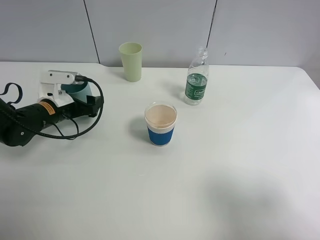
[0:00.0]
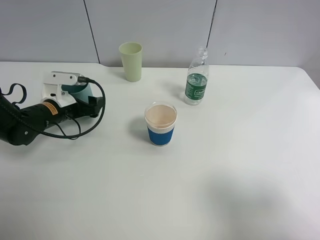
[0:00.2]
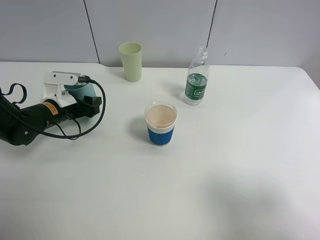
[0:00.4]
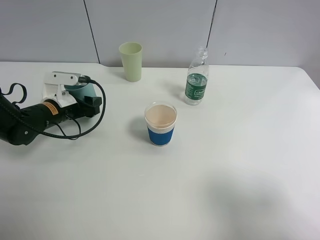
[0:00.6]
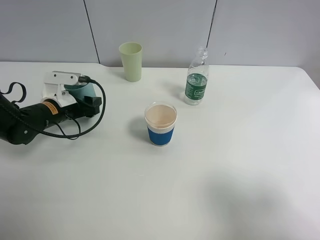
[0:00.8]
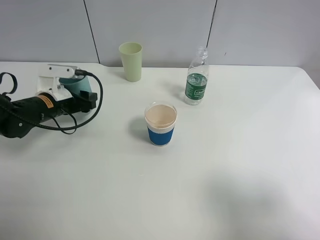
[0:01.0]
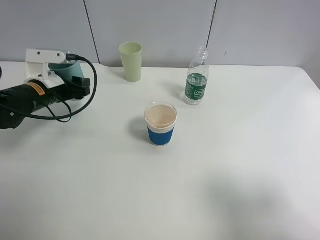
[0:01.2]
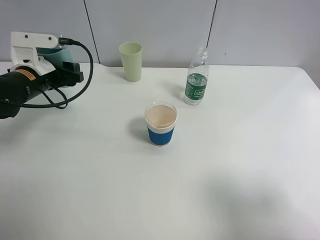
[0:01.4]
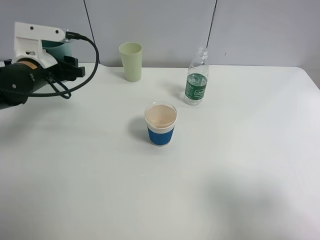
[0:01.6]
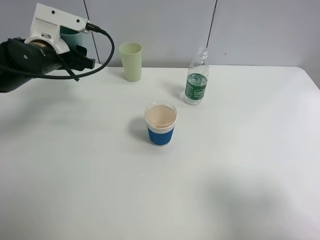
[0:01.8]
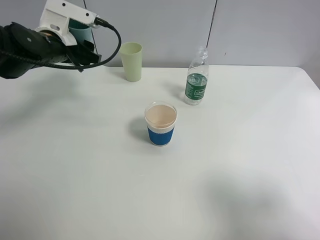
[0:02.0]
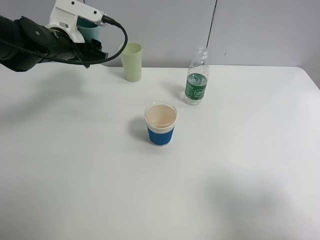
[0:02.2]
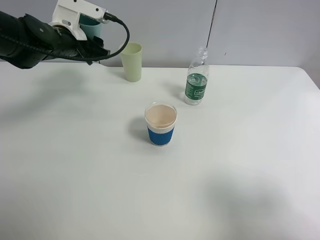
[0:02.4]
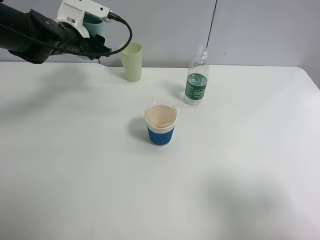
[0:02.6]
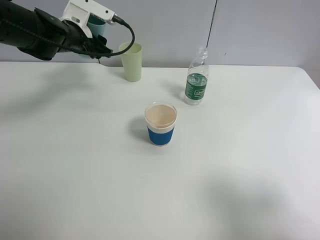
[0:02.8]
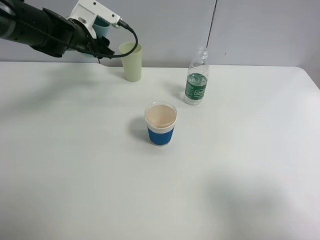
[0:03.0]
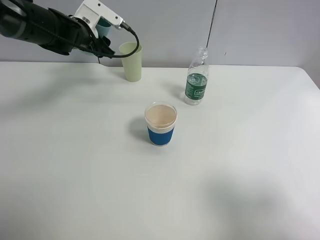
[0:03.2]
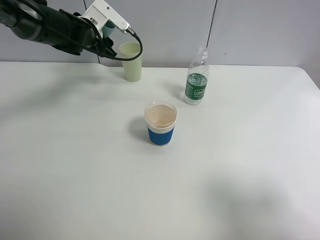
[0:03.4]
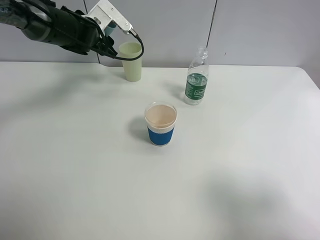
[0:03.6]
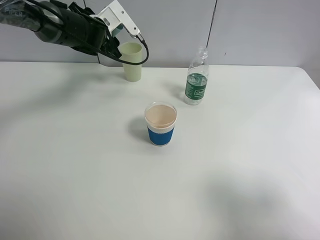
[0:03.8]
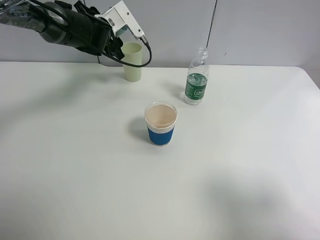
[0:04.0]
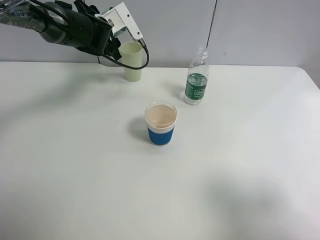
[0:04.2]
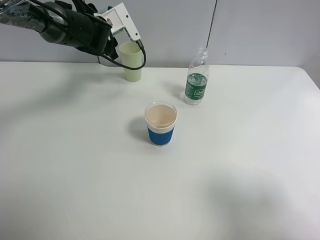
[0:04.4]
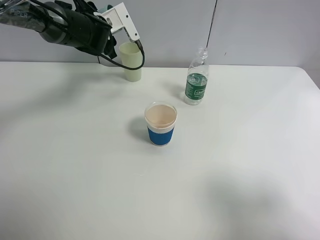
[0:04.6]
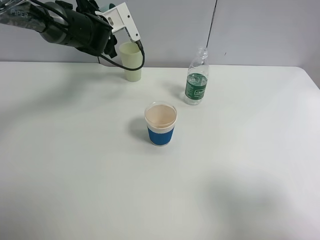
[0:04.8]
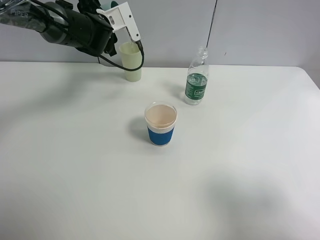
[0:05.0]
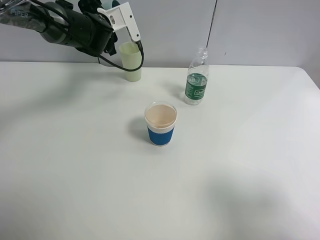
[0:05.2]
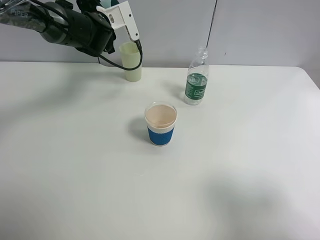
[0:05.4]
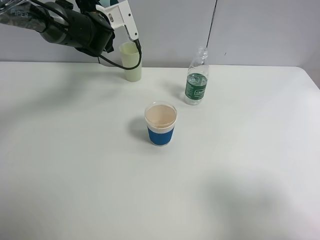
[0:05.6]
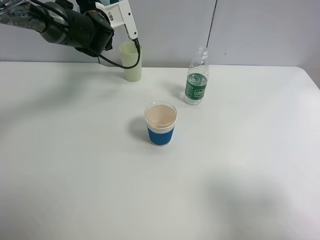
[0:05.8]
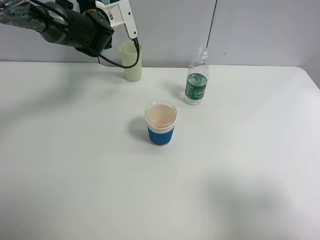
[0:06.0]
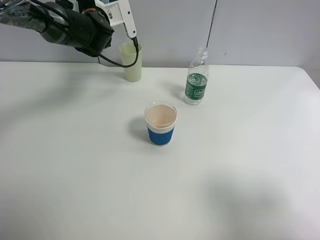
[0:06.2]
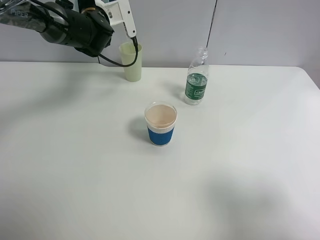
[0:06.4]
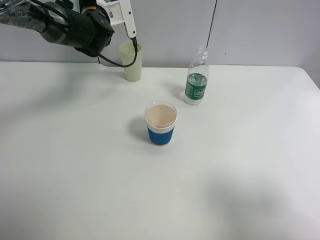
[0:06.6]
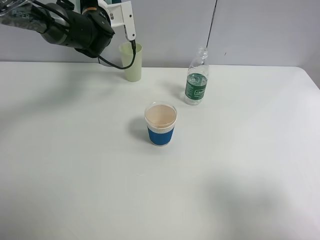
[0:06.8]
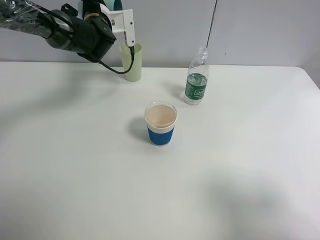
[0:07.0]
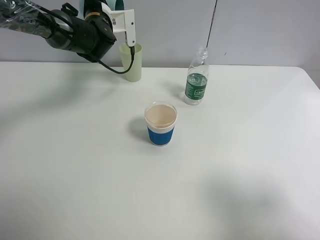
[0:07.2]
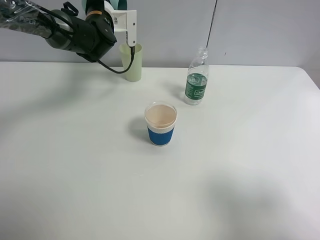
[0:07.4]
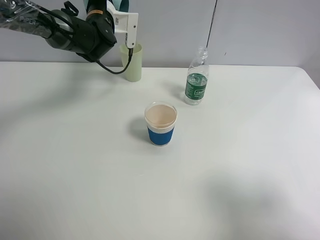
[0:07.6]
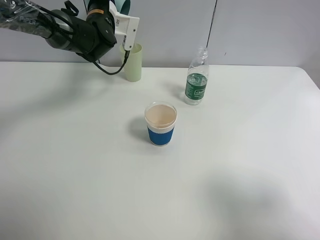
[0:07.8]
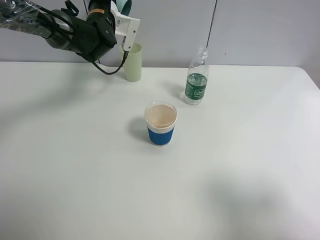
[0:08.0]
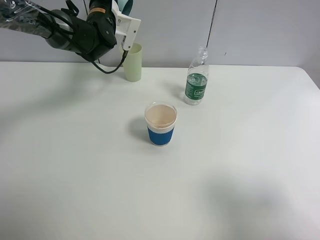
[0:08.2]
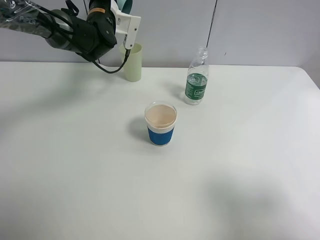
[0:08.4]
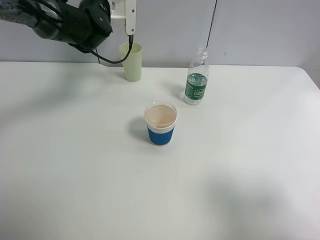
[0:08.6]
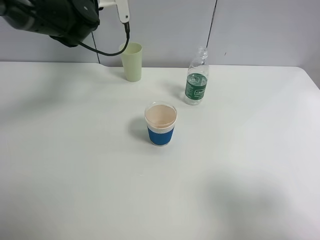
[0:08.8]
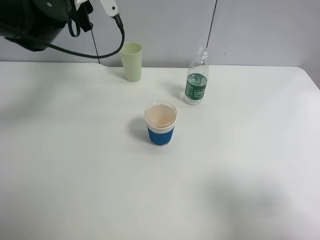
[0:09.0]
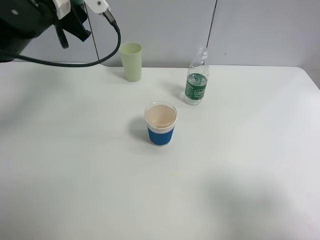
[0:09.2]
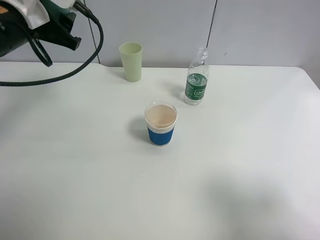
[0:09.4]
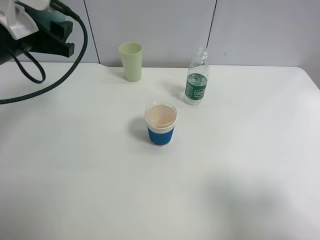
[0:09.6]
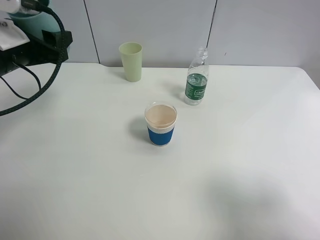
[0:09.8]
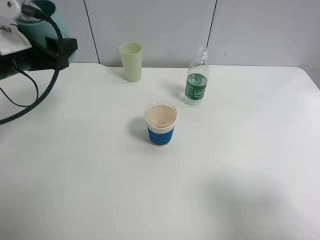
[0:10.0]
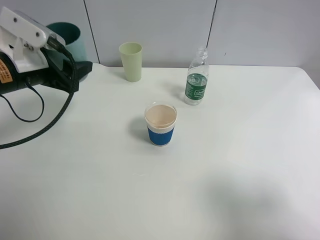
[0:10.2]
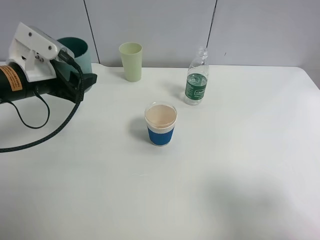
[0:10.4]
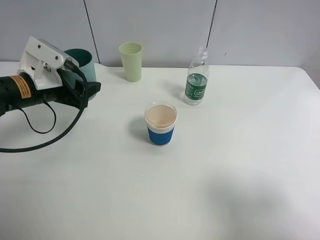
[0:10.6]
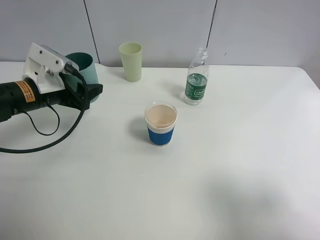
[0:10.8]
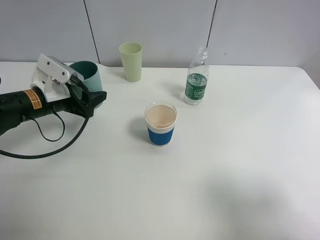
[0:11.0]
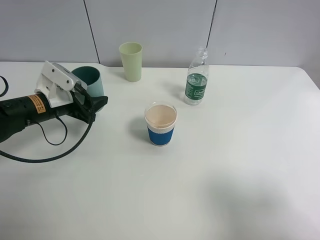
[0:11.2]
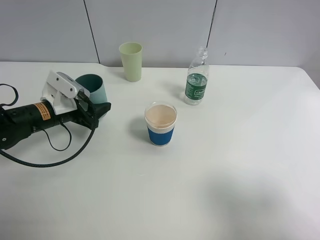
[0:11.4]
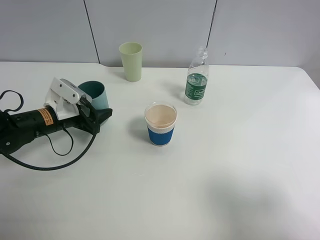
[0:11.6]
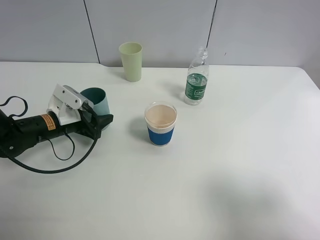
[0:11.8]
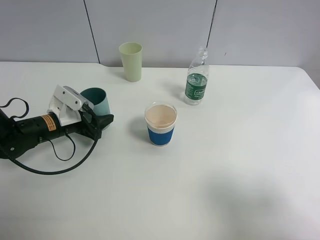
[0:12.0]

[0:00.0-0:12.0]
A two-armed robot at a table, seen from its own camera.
Task of the whole recording: use a clamp to hold the bottle of the drink, pour the beverage into a random cup, then clamp the cup containing the drink and pour the drink into another random cup.
0:00.0 to 0:01.6: The left gripper moves upward, about 10 cm, and closes up.
0:01.6 to 0:03.0: The left gripper is displaced forward by some 10 cm.
0:04.4 to 0:06.0: The grippers stay close to where they were, moving slightly.
0:07.6 to 0:09.0: The left gripper goes roughly 15 cm backward and upward.
0:09.0 to 0:10.4: The left gripper is displaced backward and downward by some 15 cm.
0:10.4 to 0:12.0: The left gripper heads downward, covering roughly 15 cm.

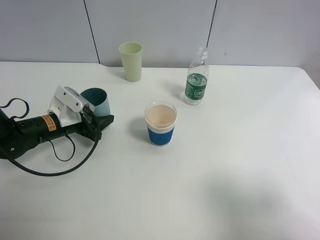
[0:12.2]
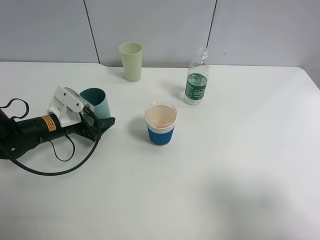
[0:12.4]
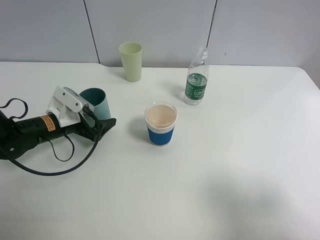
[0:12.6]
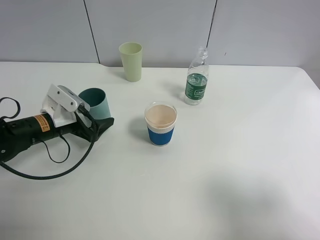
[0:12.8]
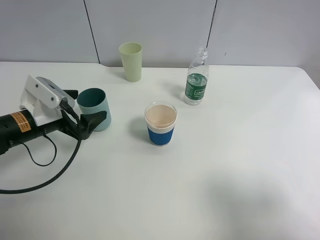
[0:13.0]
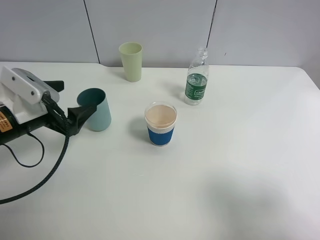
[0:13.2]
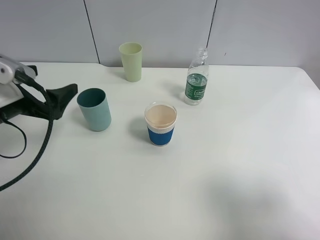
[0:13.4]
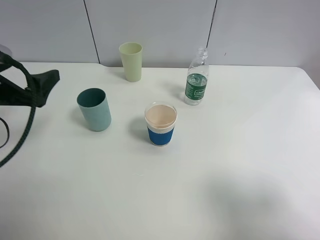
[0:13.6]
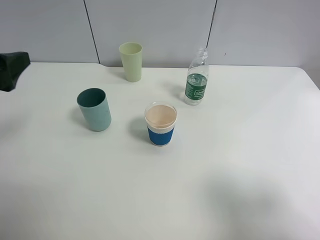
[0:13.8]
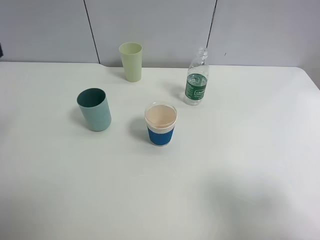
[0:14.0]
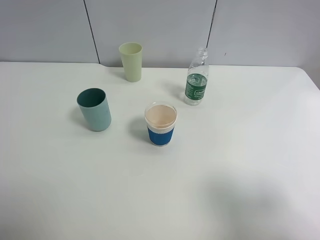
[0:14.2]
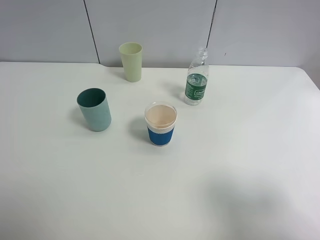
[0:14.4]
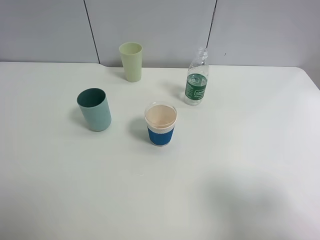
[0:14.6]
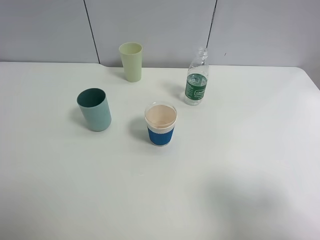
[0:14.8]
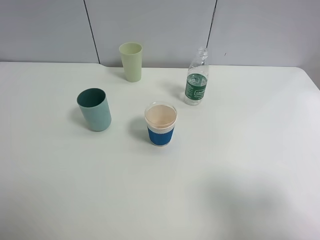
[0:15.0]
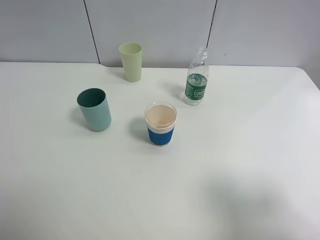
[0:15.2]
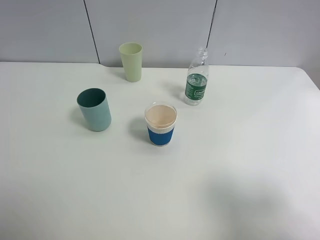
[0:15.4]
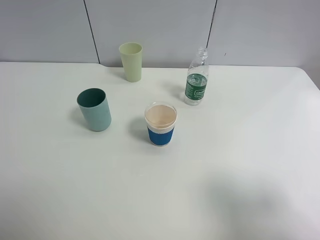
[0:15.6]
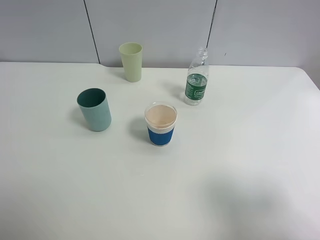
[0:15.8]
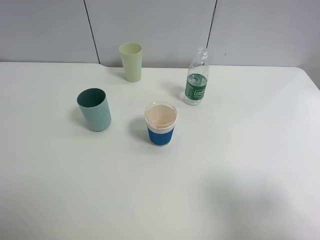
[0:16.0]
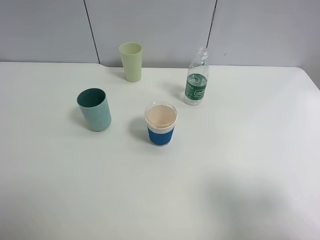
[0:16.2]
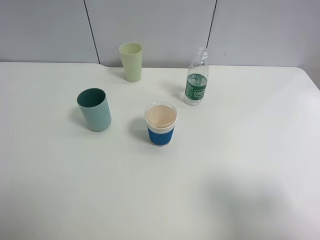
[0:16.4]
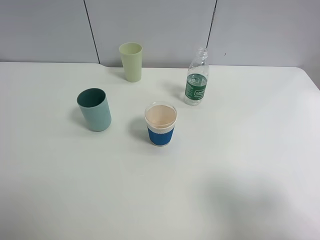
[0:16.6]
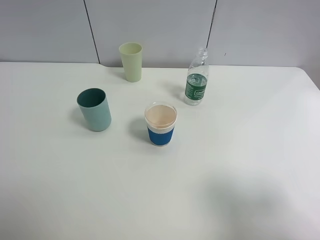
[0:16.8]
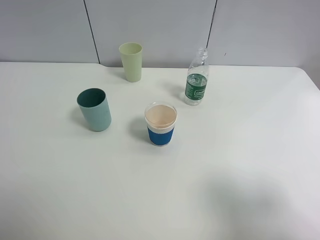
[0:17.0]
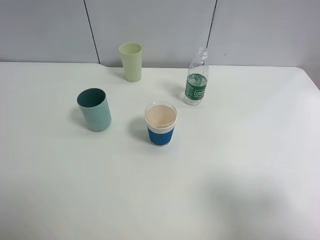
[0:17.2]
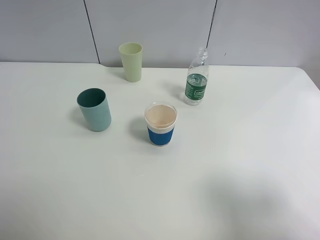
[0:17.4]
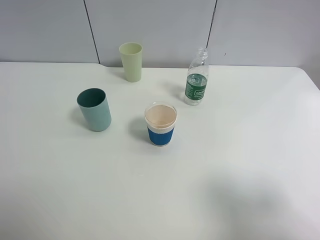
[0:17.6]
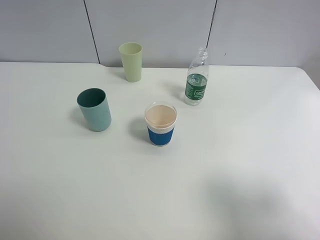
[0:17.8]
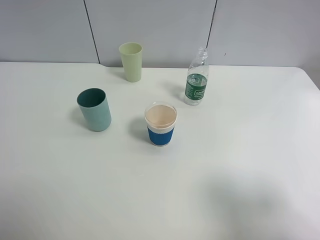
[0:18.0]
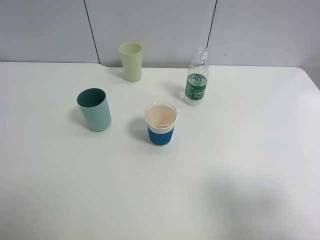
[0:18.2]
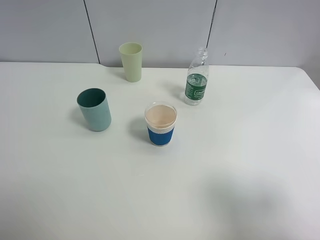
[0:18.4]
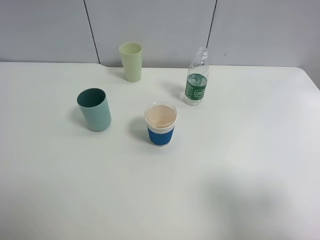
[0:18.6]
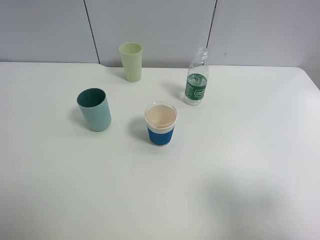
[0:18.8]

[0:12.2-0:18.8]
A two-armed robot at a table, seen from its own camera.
Task of the whole recording: use a clamp to hold the bottle of the drink, pour the beverage into a random cup, then clamp the cup containing the drink and pour the drink into another random cup.
0:12.2 to 0:13.8: The left gripper heads upward and backward, covering about 25 cm, and opens up.
0:13.8 to 0:15.4: The left gripper shifts roughly 15 cm backward.
0:17.2 to 0:18.8: The two grippers keep their place.
